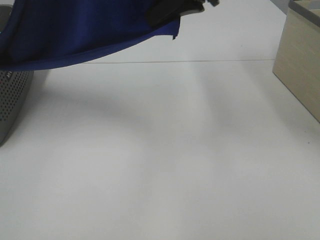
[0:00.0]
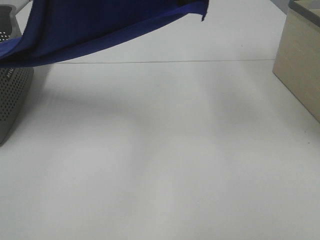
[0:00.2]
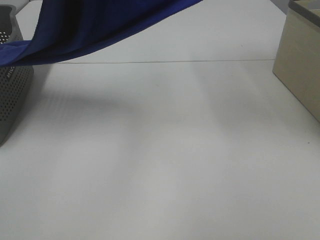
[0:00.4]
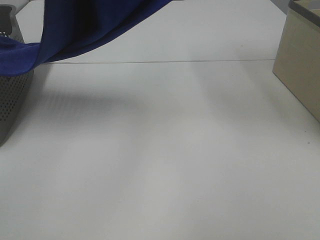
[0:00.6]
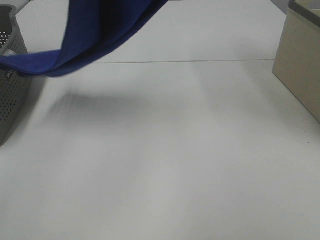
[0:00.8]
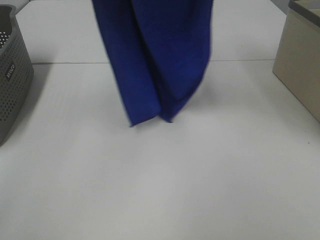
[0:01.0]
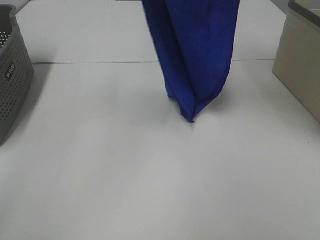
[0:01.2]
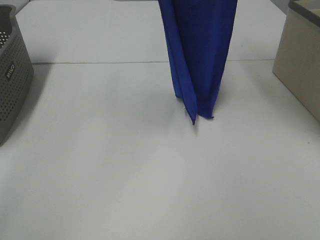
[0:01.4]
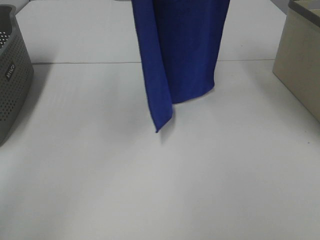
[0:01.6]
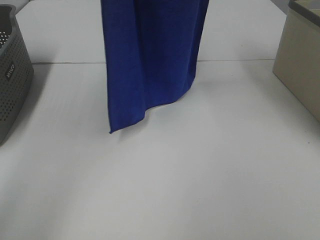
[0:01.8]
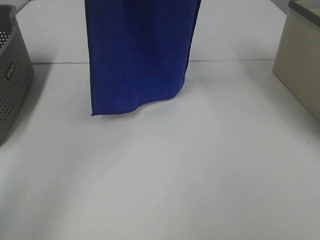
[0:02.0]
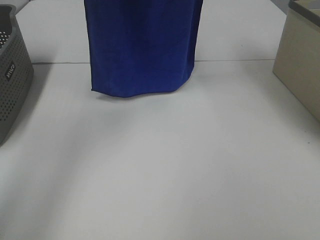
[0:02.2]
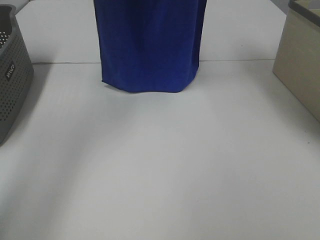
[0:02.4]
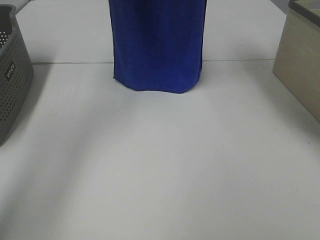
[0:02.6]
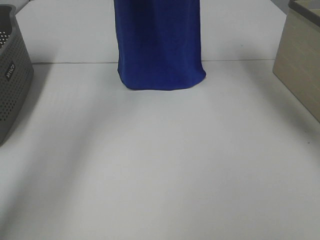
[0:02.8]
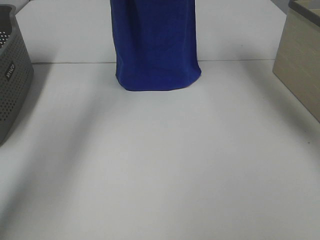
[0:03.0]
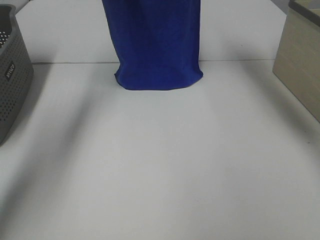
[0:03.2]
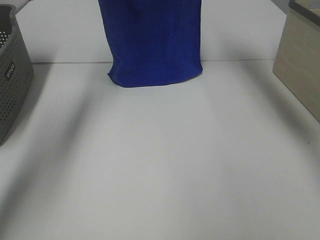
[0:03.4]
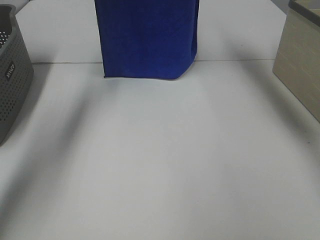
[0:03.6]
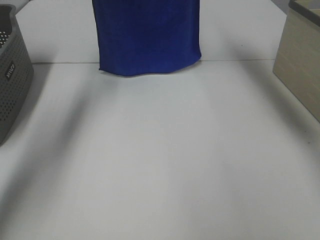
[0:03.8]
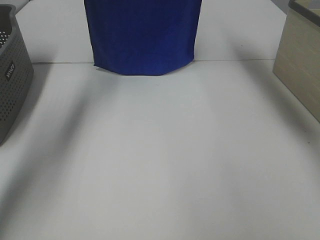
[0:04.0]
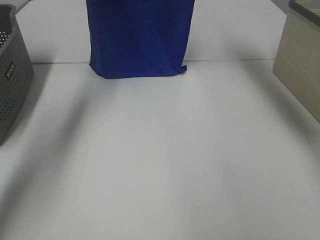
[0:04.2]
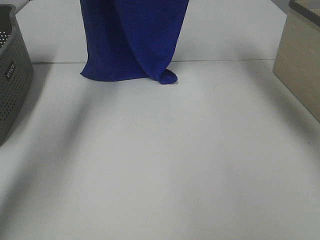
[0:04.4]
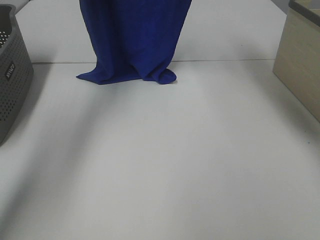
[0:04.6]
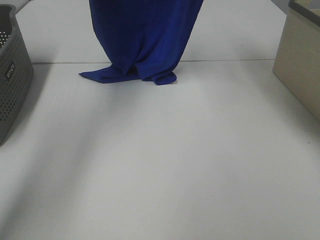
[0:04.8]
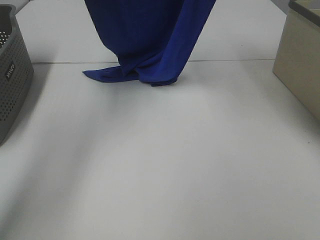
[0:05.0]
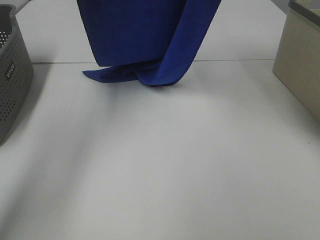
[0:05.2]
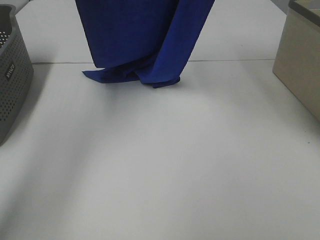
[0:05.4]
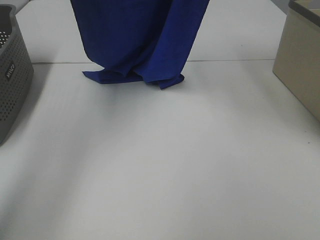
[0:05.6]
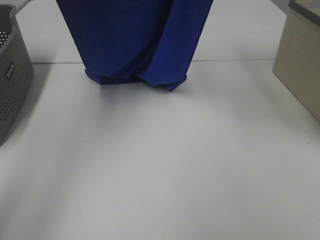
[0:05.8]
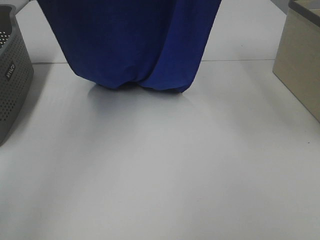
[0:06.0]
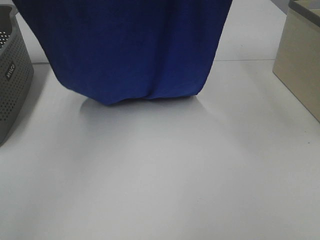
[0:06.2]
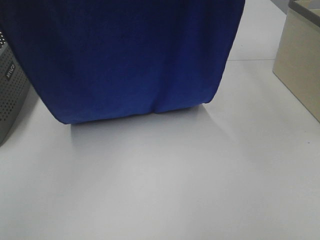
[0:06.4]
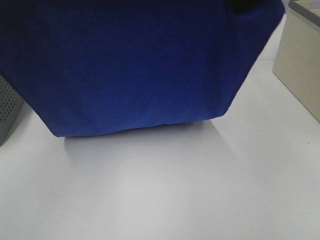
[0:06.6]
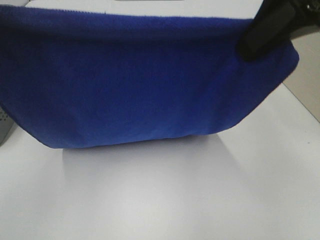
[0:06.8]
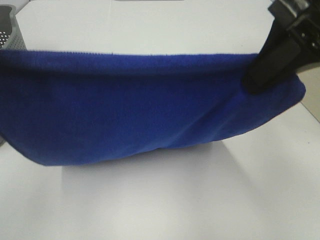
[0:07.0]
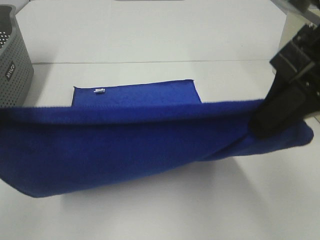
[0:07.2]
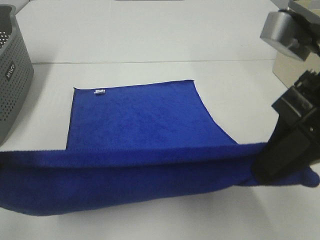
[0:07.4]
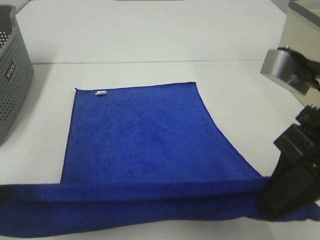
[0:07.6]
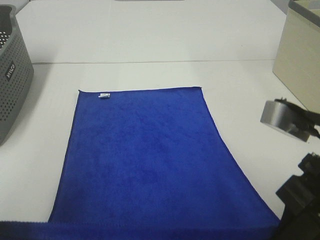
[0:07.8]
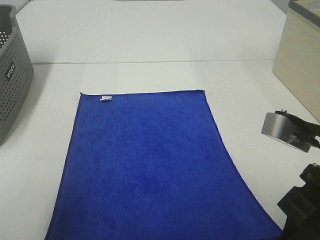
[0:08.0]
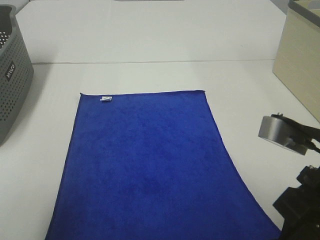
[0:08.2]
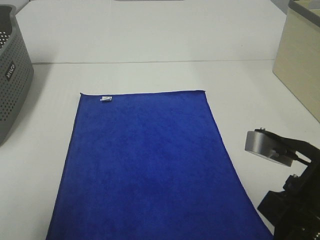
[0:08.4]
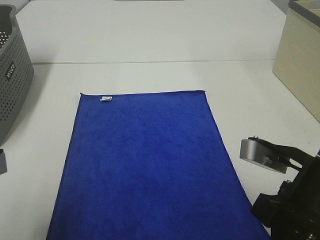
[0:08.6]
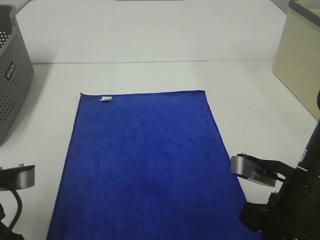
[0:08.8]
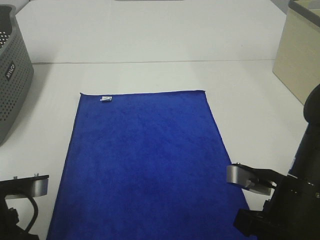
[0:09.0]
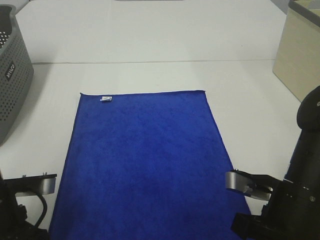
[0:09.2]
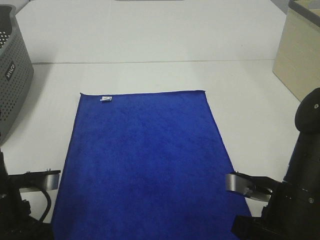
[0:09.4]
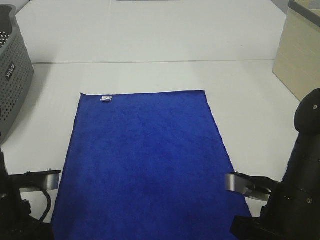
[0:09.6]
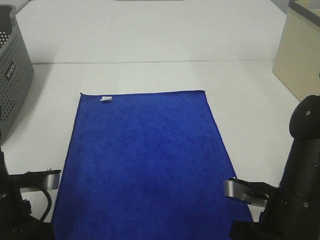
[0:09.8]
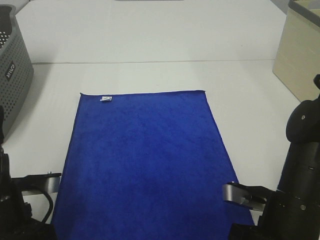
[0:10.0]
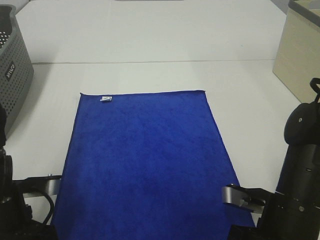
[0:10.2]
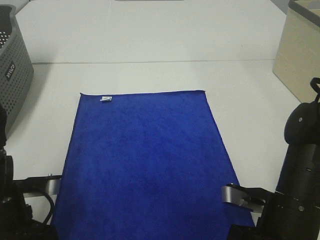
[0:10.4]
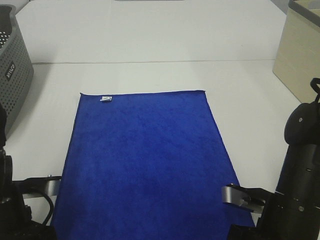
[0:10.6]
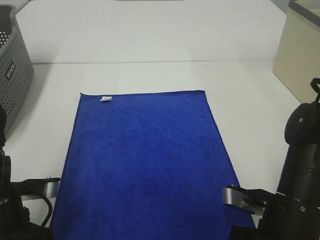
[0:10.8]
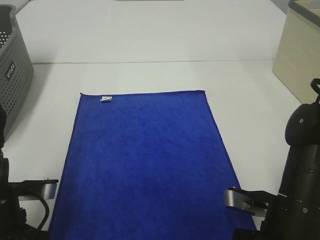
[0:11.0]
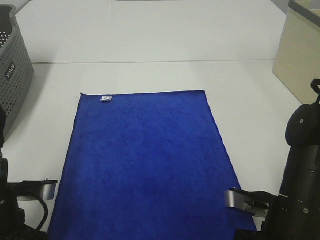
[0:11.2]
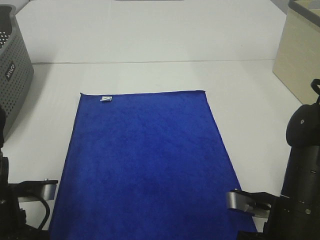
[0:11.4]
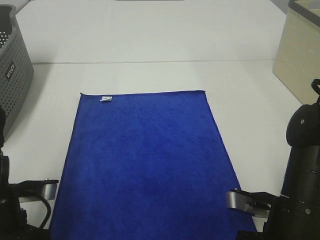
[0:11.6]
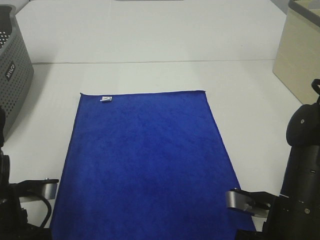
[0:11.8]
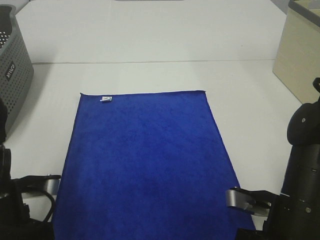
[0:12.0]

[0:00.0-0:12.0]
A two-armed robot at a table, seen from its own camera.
Task of the whole recording: Remove the towel and place it.
Step, 0:00.0 to 0:07.0: Left hand: spread the blue towel flat on the table.
Step, 0:00.0 to 0:07.0: Right hand: spread the blue towel flat on the table.
0:00.0 to 0:01.6: The left gripper goes about 15 cm forward, while the right gripper shifts about 15 cm upward.
0:01.6 to 0:03.0: Both grippers travel together forward and downward, approximately 15 cm.
0:03.0 to 0:04.4: The grippers make only small movements.
0:04.4 to 0:06.0: The two grippers go roughly 20 cm backward.
0:06.0 to 0:07.6: Both grippers move downward and backward, about 25 cm.
0:07.6 to 0:09.0: The two grippers go approximately 15 cm downward.
0:09.0 to 0:10.4: The grippers make only small movements.
0:10.4 to 0:12.0: The right gripper opens its fingers. The left gripper opens its fingers.

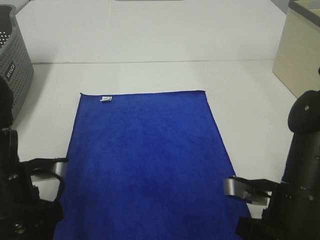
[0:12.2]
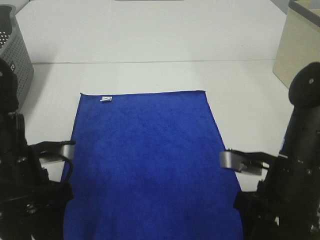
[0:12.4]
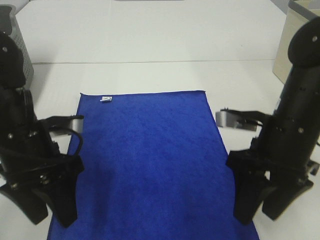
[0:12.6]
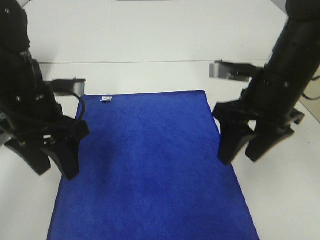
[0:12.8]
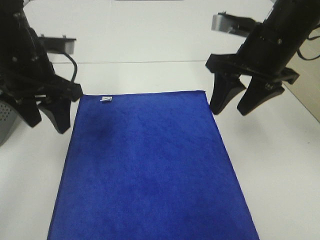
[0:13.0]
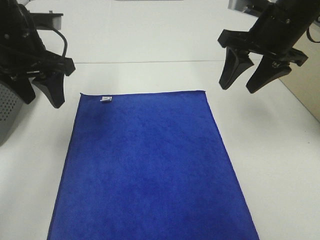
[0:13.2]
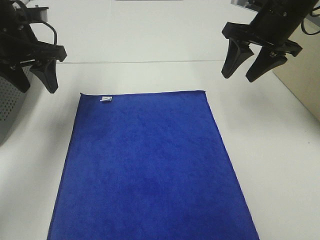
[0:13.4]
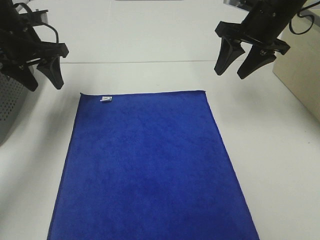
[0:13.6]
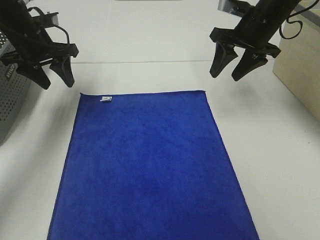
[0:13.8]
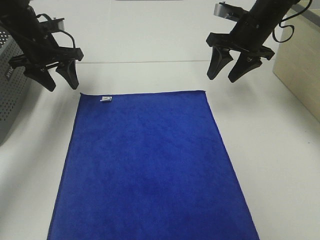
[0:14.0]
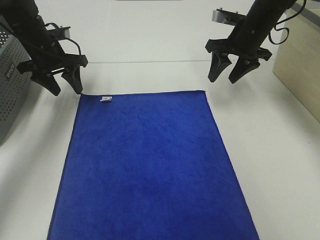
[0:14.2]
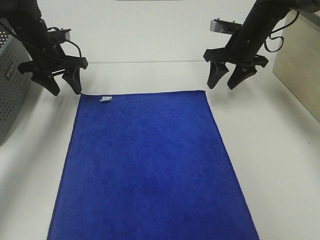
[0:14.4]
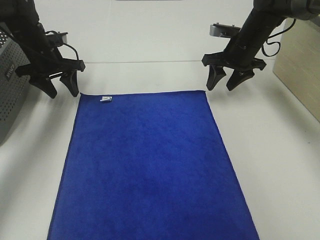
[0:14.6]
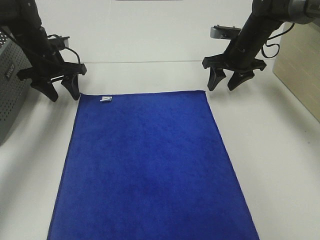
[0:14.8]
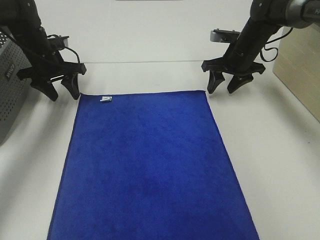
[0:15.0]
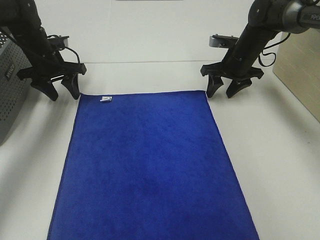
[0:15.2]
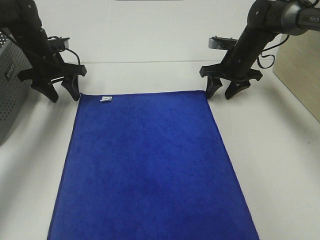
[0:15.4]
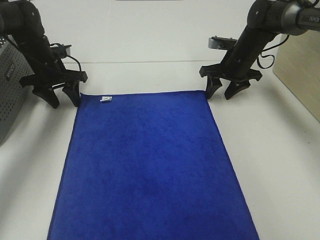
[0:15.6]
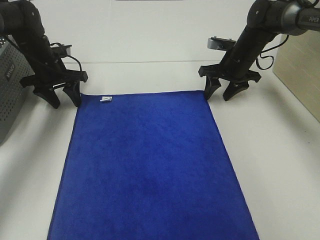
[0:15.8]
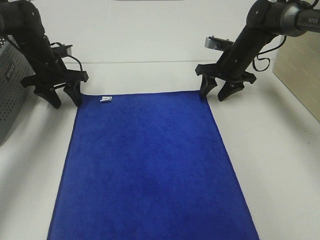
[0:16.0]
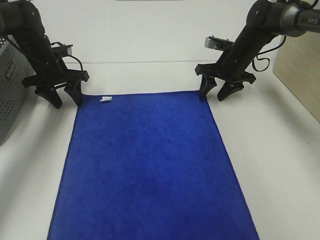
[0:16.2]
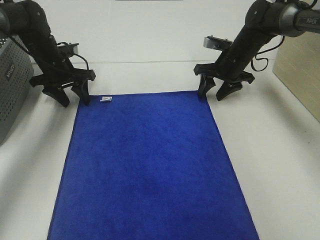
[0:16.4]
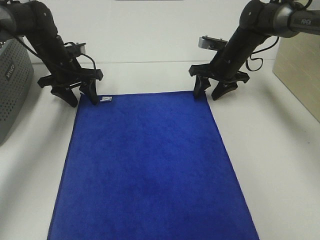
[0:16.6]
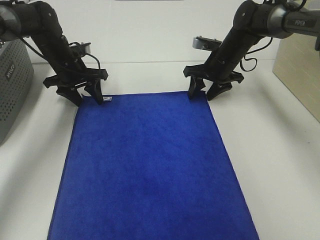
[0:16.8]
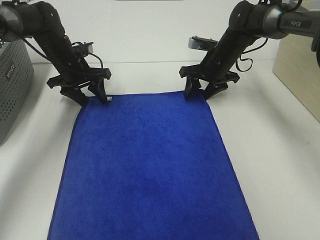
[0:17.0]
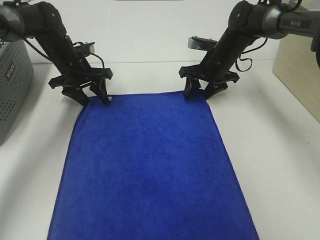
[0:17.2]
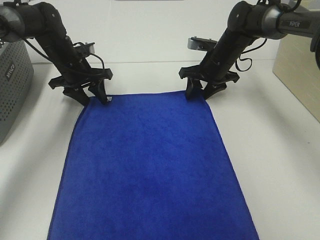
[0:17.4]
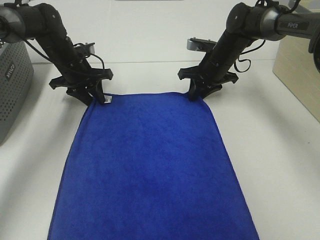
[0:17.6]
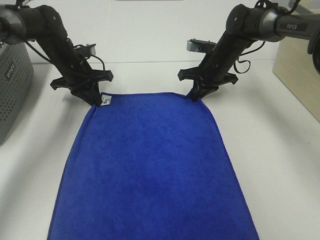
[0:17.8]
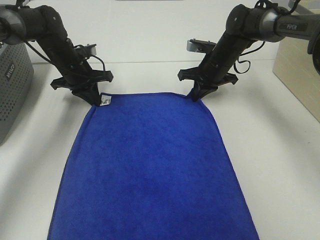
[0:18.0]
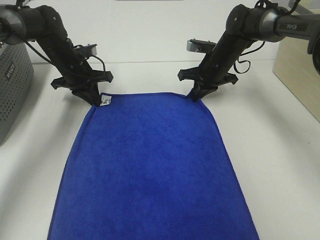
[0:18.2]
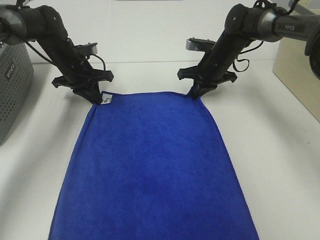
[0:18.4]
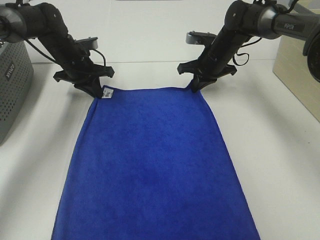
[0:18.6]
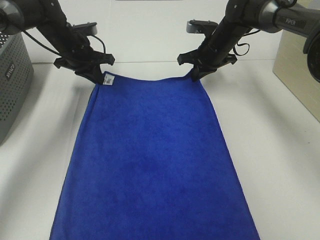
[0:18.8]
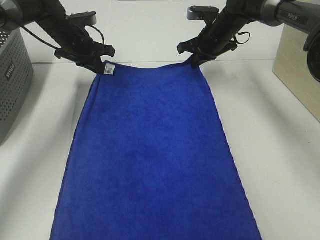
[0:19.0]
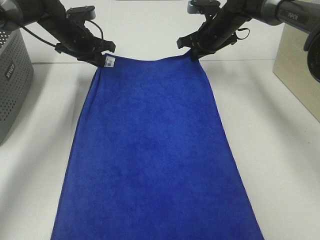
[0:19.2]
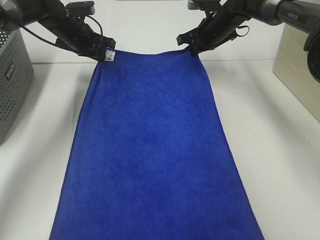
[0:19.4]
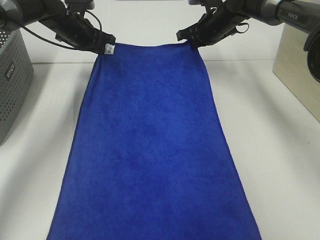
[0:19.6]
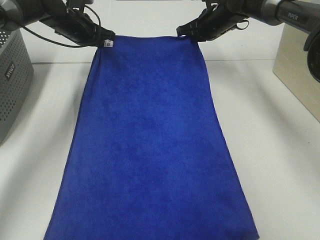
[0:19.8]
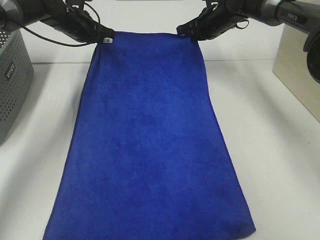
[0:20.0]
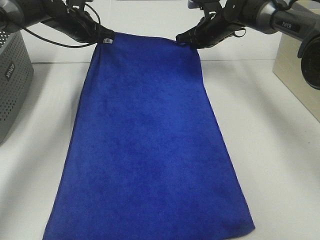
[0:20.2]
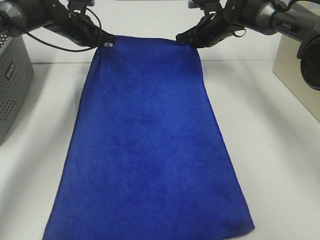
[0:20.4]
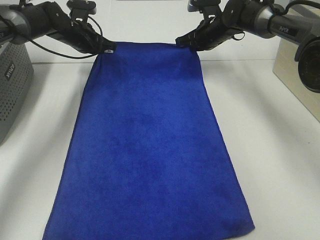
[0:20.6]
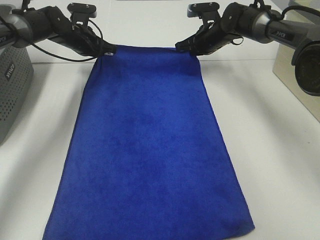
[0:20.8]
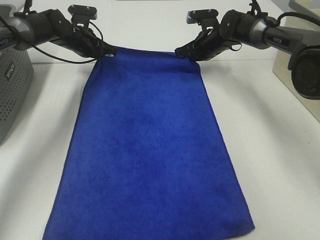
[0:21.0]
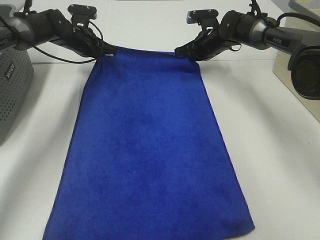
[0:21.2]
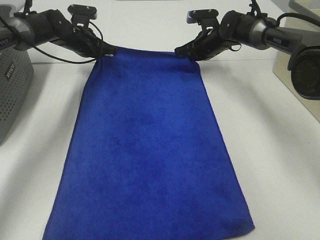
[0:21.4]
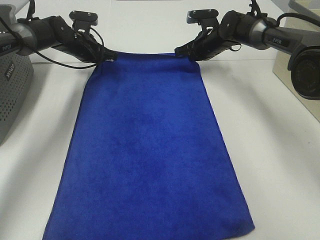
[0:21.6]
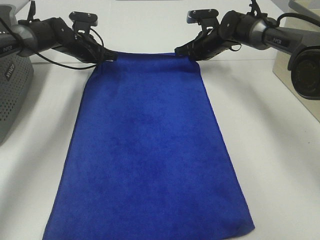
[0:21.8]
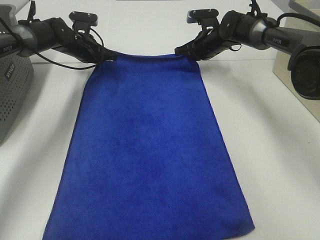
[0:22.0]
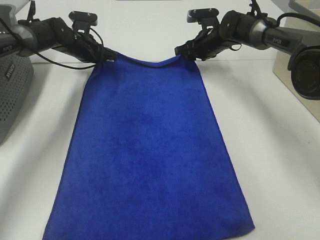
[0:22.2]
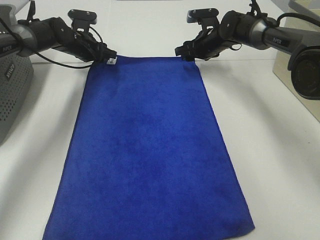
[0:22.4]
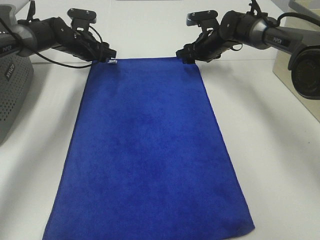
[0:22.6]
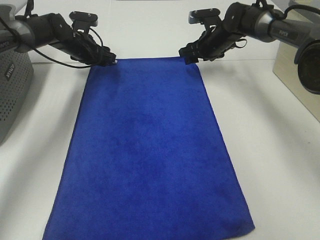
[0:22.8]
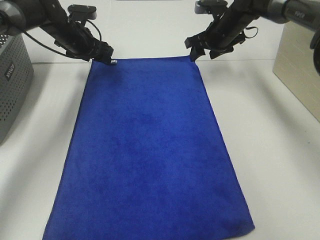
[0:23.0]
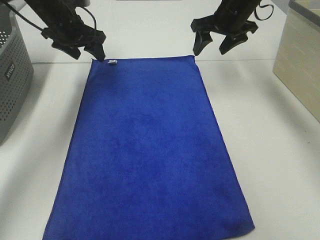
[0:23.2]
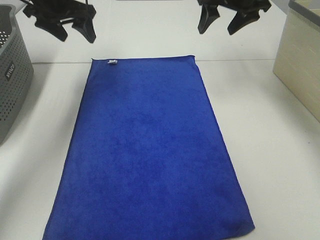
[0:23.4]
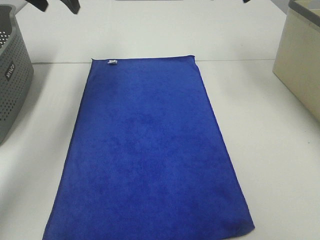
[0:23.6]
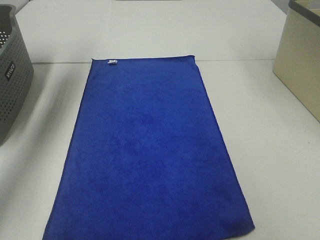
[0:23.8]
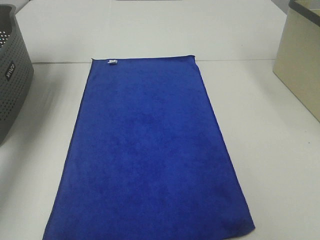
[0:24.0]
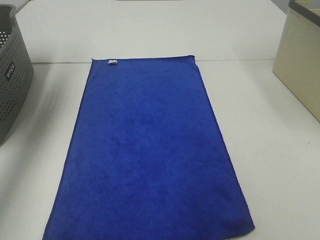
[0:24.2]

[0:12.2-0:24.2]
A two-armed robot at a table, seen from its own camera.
Task of the whole recording: Remove the towel and place it.
Step, 0:12.2 to 0:15.6: Left hand:adjust the blue towel.
Step, 0:12.2 to 0:15.6: Right hand:adjust the blue towel.
0:12.2 to 0:13.8: The two grippers go approximately 25 cm forward.
0:13.8 to 0:15.2: Both grippers travel together downward and forward, about 10 cm.
0:15.2 to 0:16.6: The grippers make only small movements.
0:16.6 to 0:18.2: The left gripper closes, while the right gripper closes up.
0:18.2 to 0:19.8: Both grippers travel together upward and forward, approximately 10 cm.
0:19.8 to 0:21.2: The right gripper goes approximately 5 cm downward.
0:21.2 to 0:22.6: The right gripper opens its fingers. Meanwhile the left gripper opens up.
0:22.6 to 0:24.2: The right gripper is displaced upward and backward by roughly 35 cm, while the left gripper shifts about 35 cm upward, backward and to the left.
